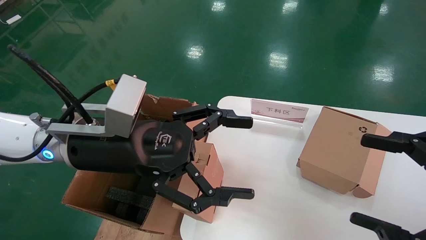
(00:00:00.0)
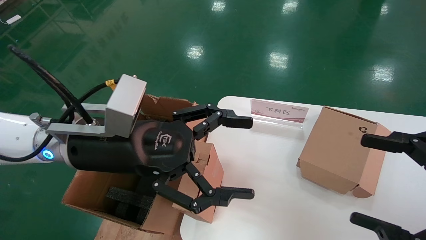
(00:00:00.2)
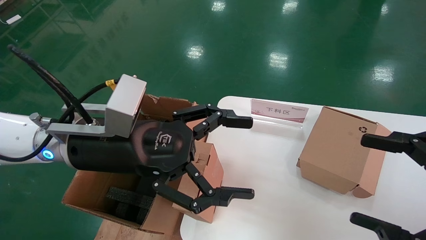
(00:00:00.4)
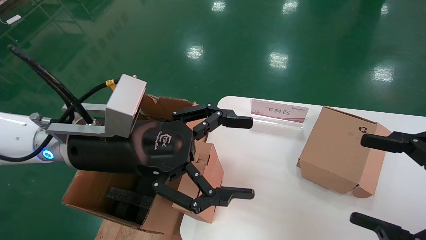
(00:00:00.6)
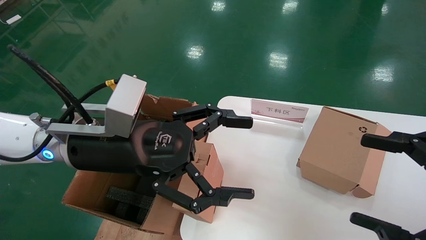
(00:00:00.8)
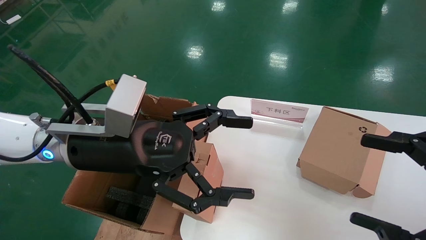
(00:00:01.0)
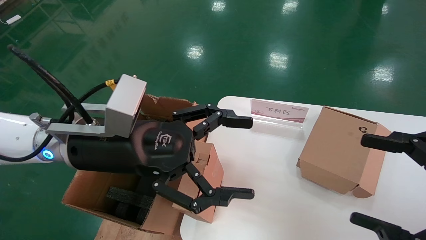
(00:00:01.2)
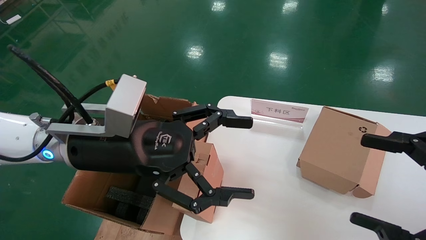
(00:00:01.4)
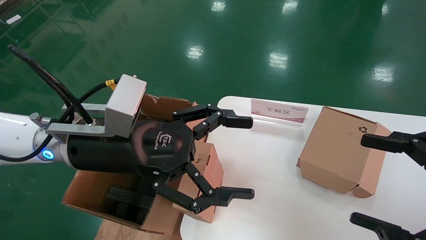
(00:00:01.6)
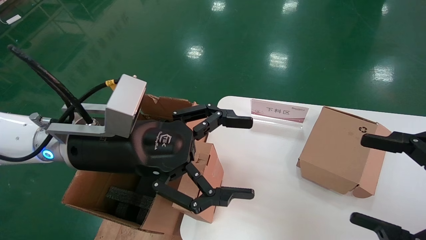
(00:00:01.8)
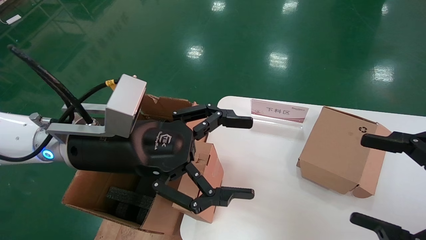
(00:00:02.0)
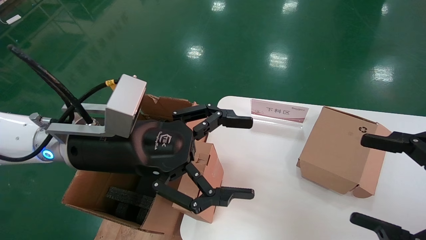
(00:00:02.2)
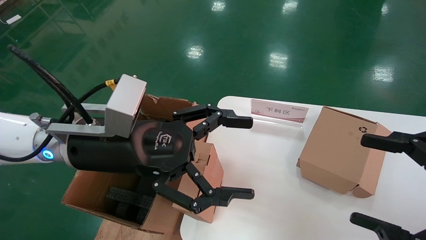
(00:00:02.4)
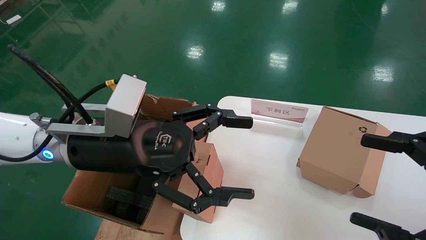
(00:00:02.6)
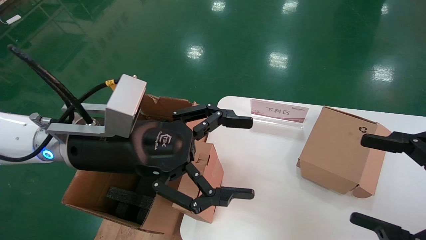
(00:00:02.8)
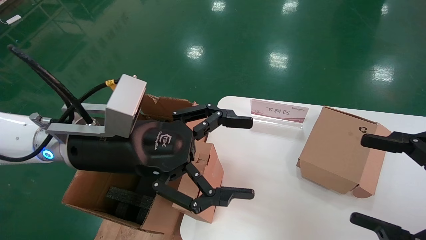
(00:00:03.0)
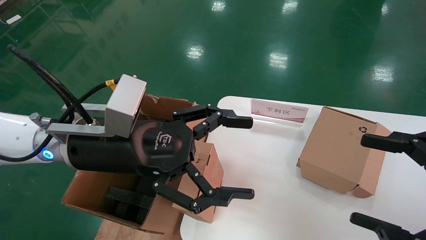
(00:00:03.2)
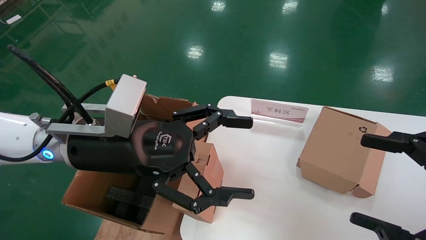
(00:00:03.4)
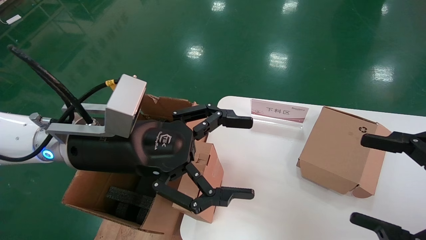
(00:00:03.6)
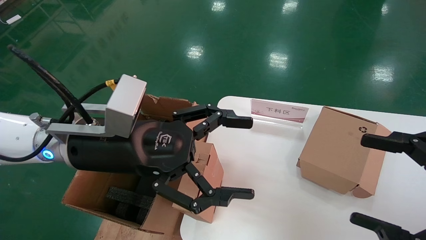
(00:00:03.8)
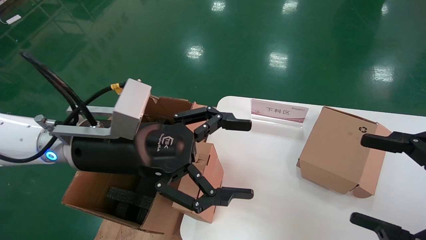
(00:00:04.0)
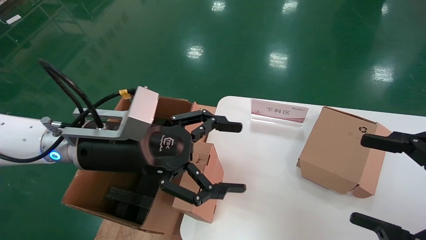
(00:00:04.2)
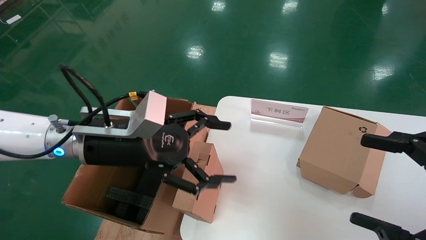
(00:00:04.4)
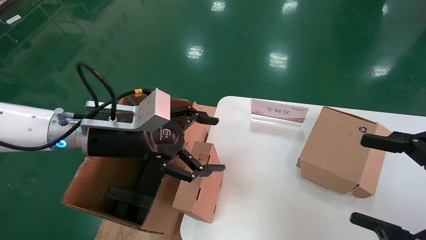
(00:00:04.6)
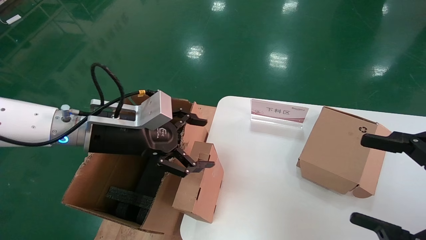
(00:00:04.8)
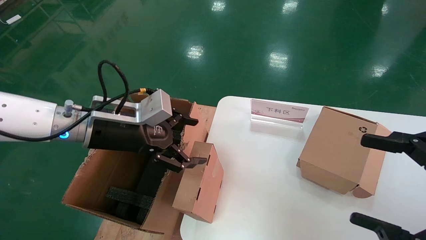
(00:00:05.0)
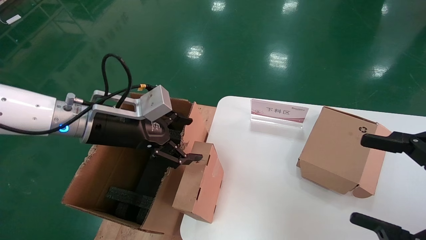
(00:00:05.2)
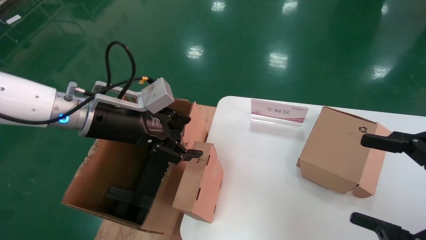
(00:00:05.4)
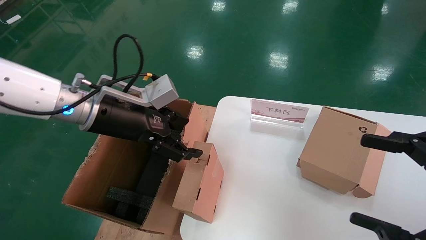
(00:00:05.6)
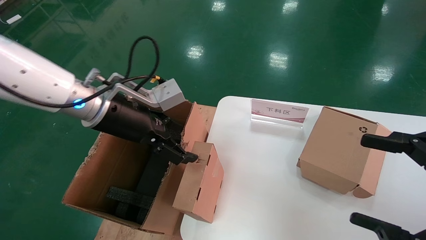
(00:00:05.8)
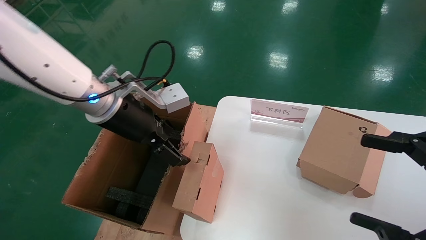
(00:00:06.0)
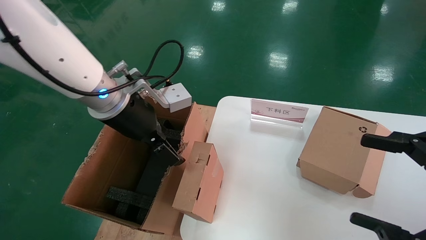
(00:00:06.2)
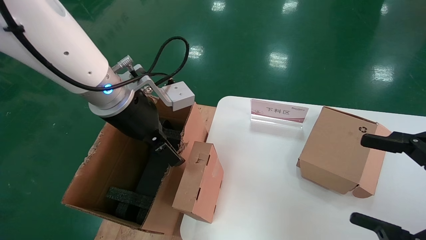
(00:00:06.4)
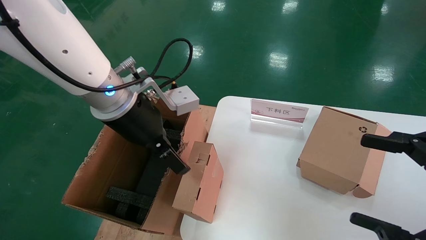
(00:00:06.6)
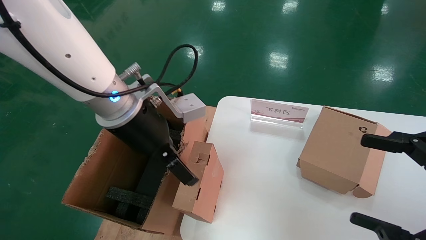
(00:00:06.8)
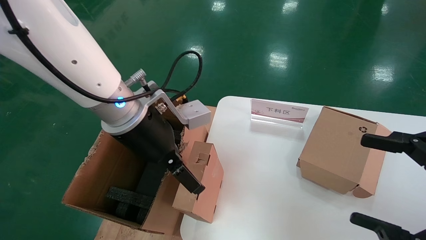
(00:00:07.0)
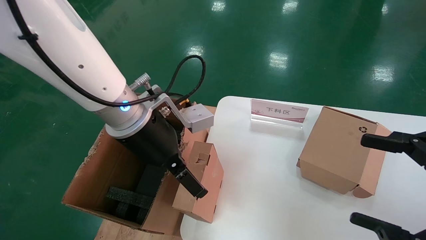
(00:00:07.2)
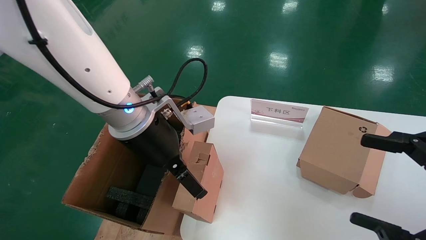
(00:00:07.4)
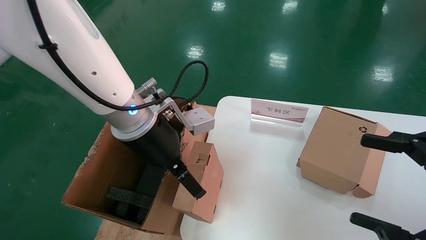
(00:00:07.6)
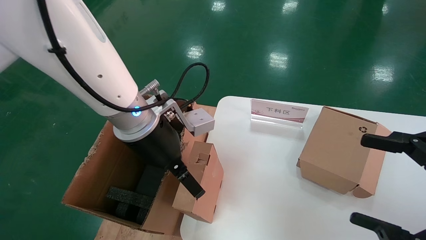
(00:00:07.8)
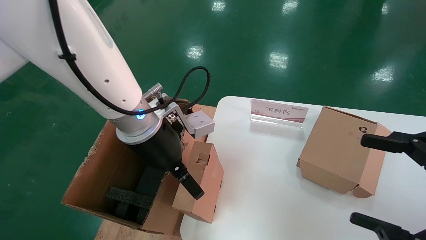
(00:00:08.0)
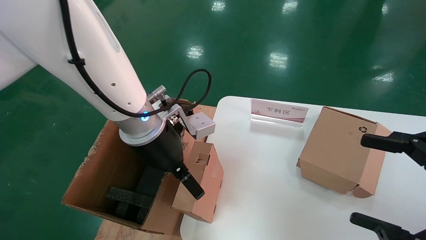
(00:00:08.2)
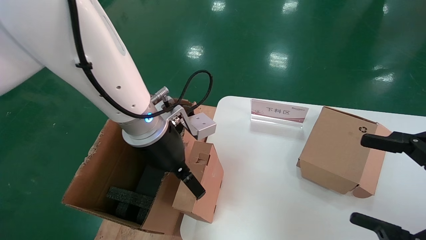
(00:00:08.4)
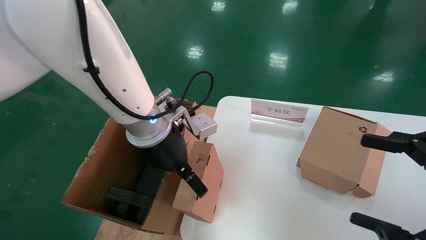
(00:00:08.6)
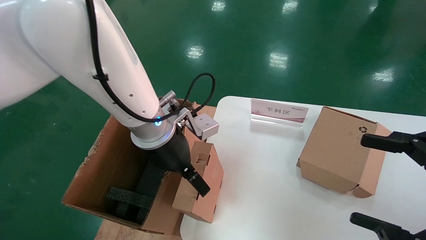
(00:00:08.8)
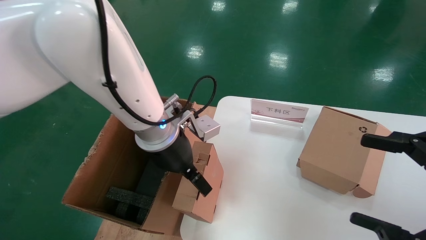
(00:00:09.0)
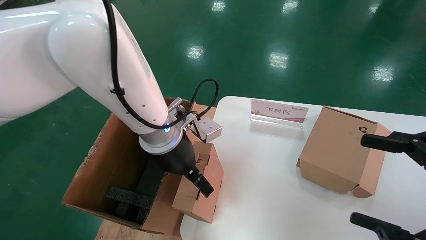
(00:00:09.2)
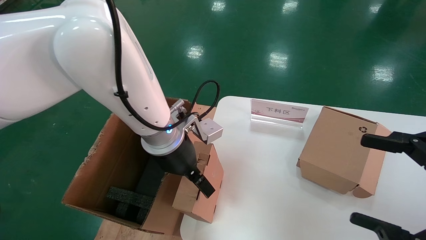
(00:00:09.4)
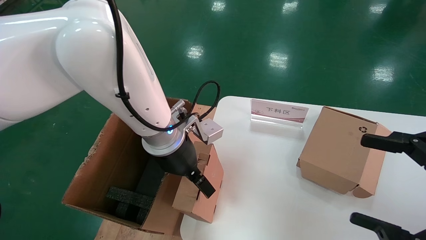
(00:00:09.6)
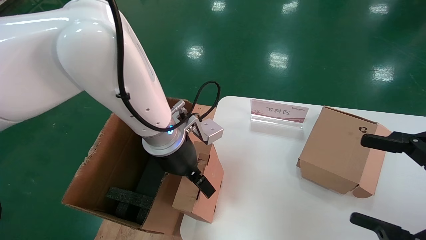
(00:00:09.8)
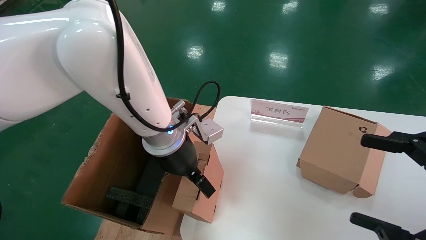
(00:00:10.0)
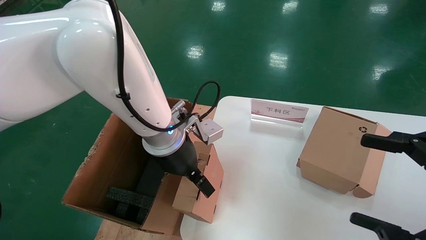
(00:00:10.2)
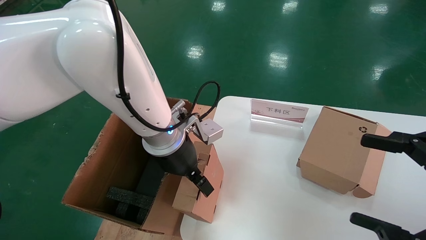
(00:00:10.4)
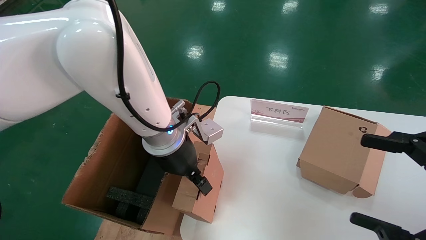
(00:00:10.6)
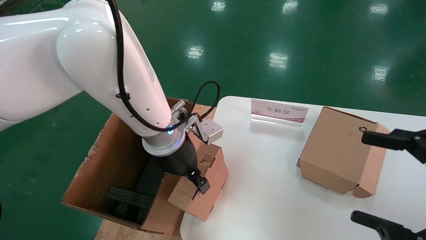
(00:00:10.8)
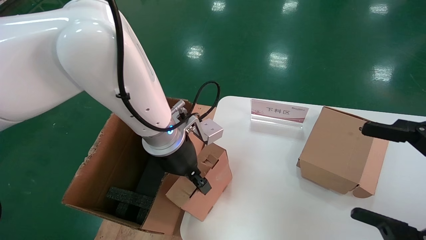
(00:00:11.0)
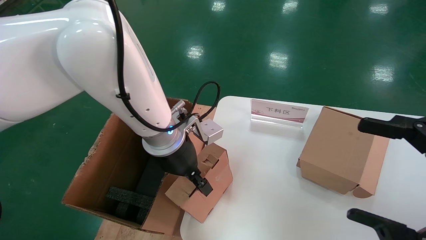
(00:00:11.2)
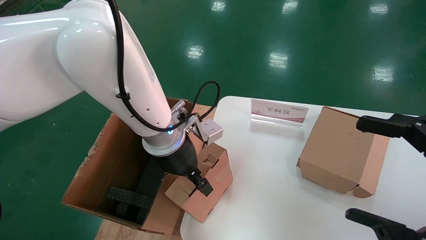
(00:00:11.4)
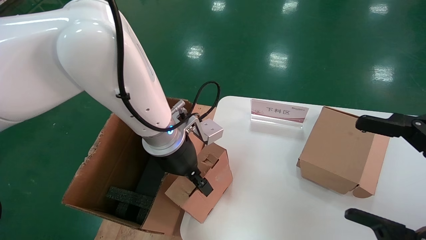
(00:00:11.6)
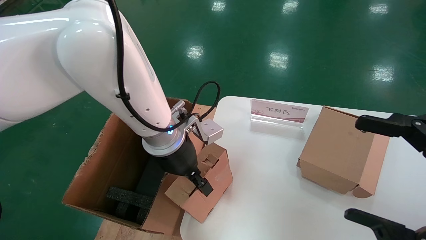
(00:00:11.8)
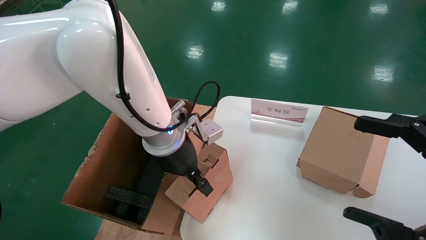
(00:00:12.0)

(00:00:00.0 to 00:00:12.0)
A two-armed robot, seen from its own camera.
Task of the whole recording: put the box on the table into the big box.
Step, 00:00:00.0 - 00:00:10.8: Grasp the paper box.
00:00:00.0 - 00:00:03.0: Neither gripper changes place.
00:00:04.4 - 00:00:06.0: The left gripper moves upward, some 5 cm.
00:00:06.0 - 00:00:07.6: The left gripper travels to the right by roughly 5 cm.
00:00:07.6 - 00:00:09.0: The grippers make only small movements.
00:00:09.0 - 00:00:10.4: Both grippers stay about where they are.
00:00:10.4 - 00:00:12.0: The left gripper closes up.

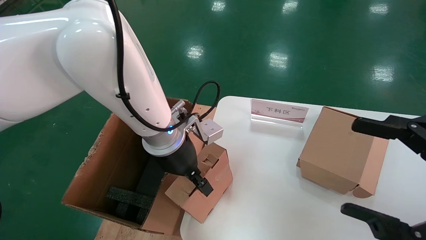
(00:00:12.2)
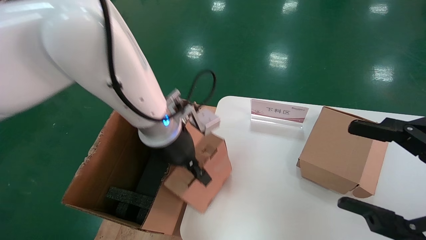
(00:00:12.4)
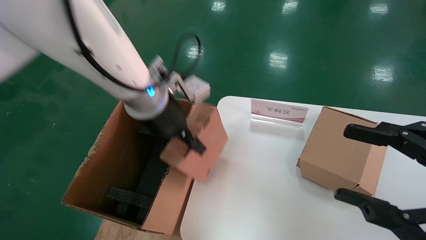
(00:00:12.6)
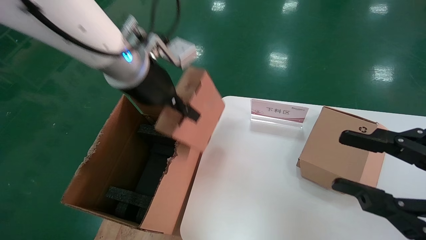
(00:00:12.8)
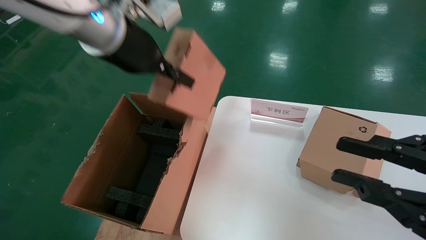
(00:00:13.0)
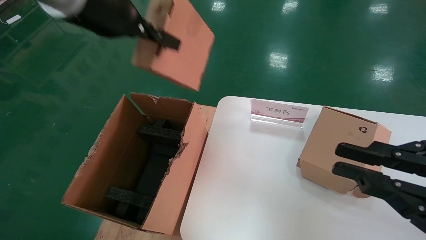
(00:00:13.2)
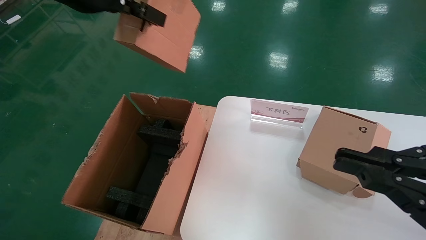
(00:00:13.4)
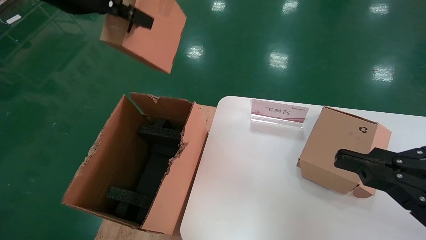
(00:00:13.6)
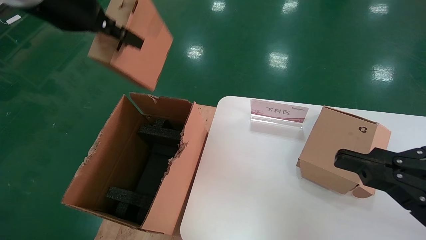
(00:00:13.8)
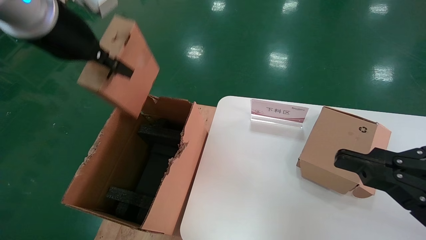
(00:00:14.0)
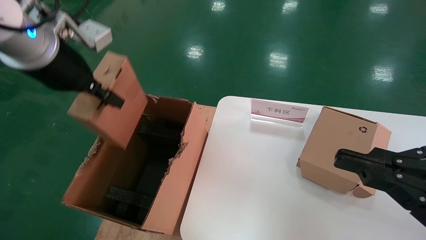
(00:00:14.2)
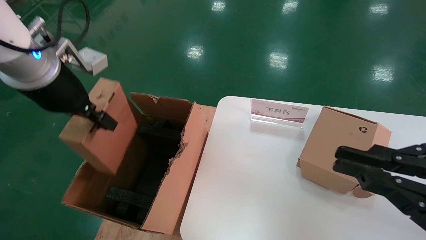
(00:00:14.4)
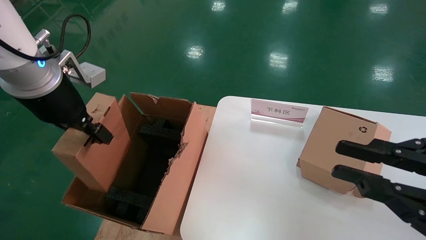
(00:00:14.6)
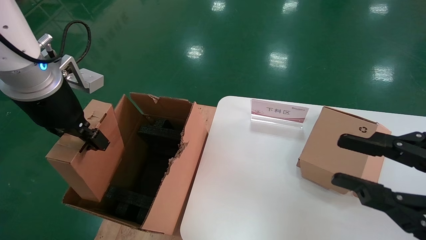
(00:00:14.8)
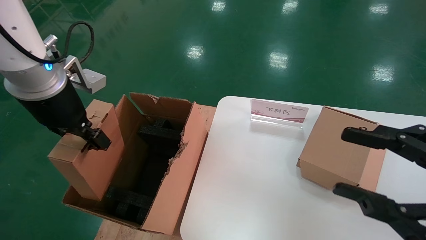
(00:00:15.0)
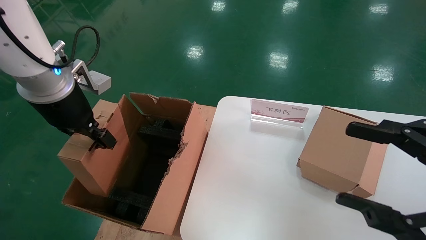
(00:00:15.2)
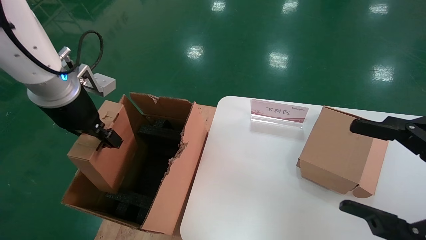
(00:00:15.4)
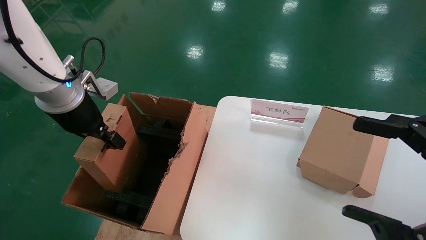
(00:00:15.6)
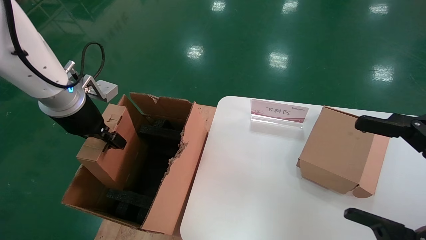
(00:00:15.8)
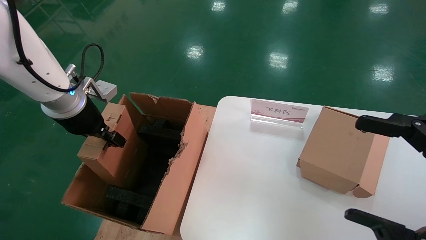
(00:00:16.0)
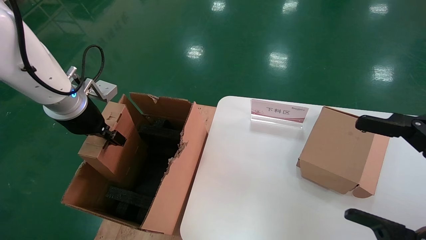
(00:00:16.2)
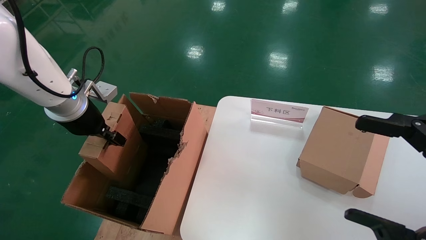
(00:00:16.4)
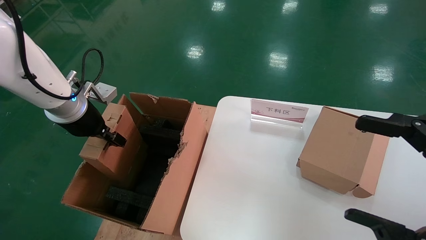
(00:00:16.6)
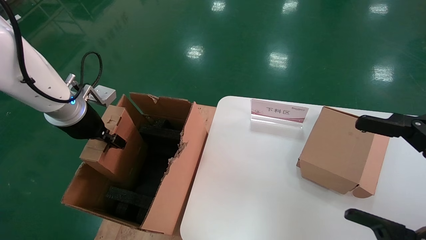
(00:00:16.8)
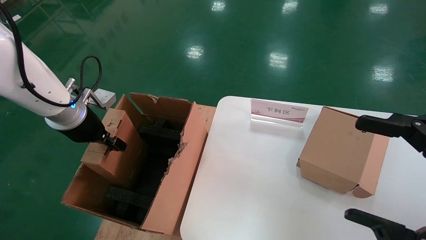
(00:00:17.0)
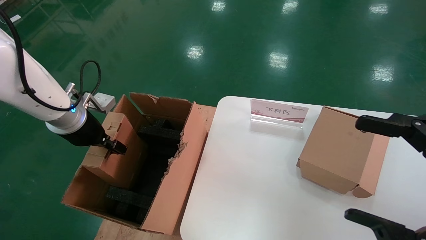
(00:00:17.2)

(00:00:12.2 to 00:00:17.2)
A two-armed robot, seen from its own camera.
Task of the whole recording: put the box on the table into the big box.
00:00:12.2 - 00:00:13.8: The right gripper closes up; the left gripper moves upward and to the left, about 25 cm.
00:00:13.8 - 00:00:15.6: The left gripper shifts about 15 cm downward. Meanwhile the right gripper opens its fingers.
00:00:15.6 - 00:00:17.2: The left gripper is displaced downward by roughly 5 cm.
